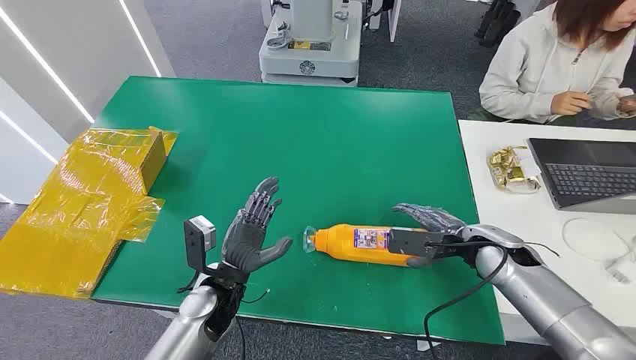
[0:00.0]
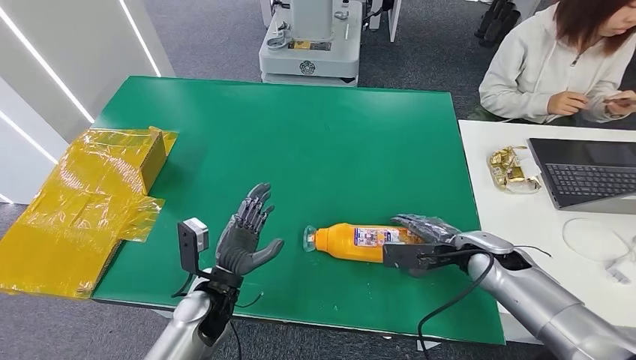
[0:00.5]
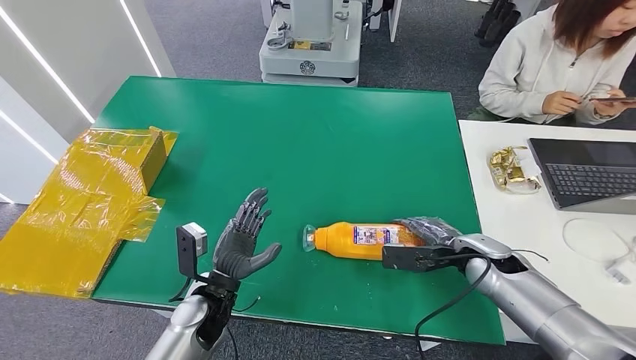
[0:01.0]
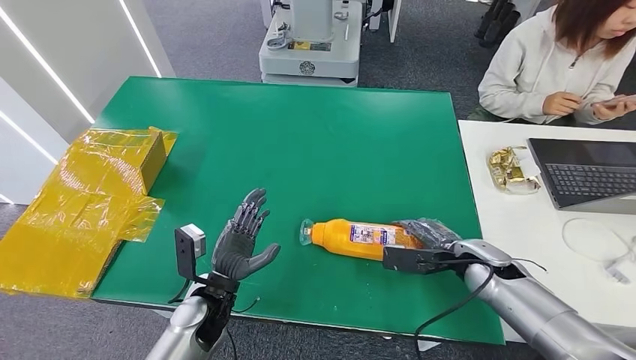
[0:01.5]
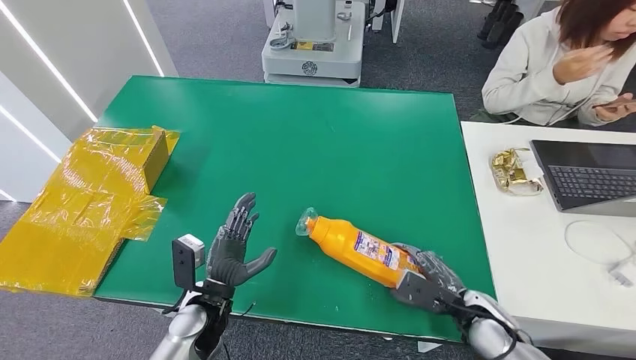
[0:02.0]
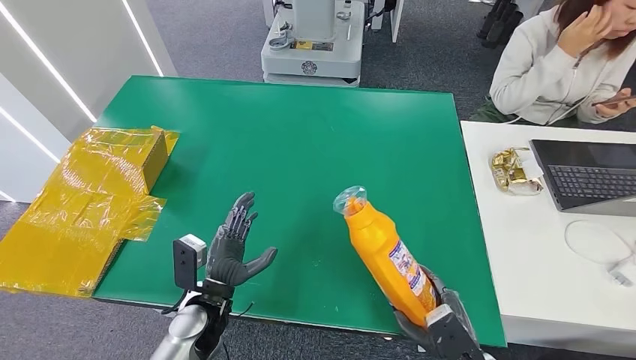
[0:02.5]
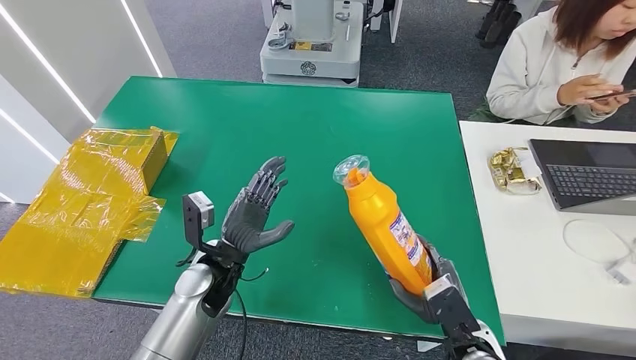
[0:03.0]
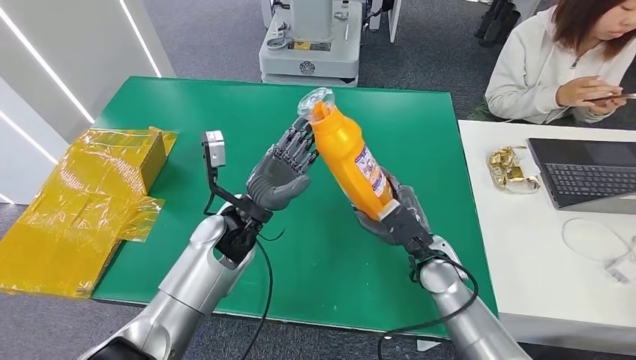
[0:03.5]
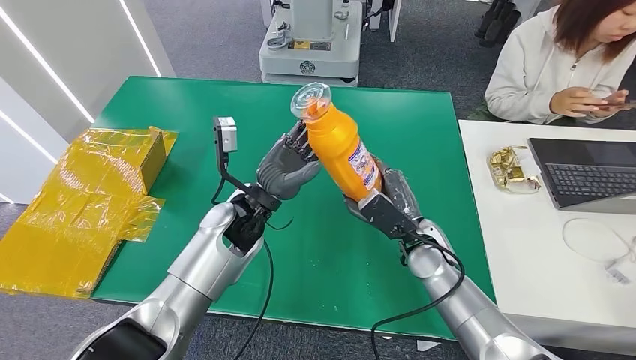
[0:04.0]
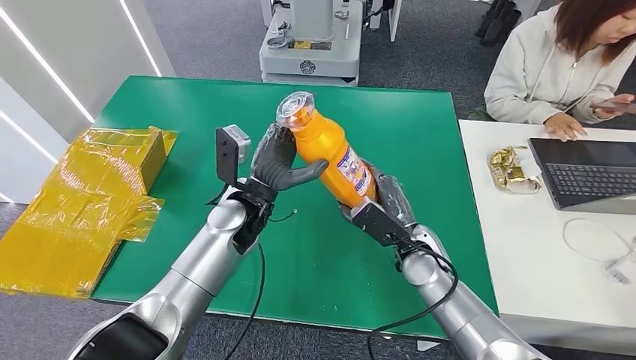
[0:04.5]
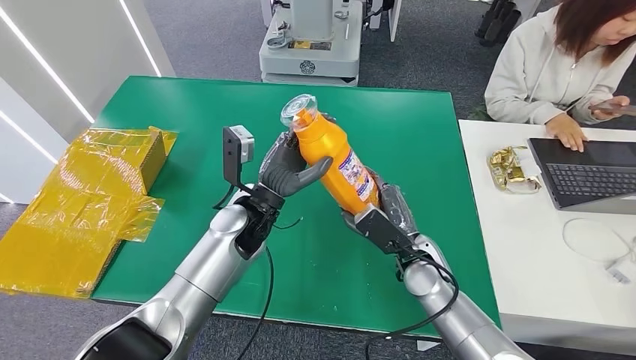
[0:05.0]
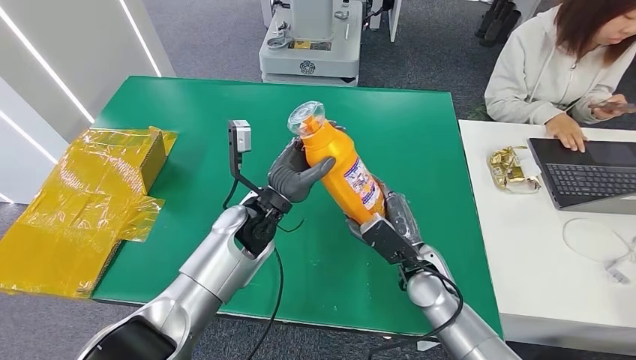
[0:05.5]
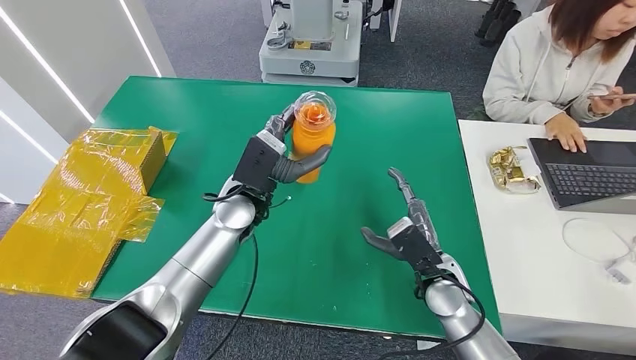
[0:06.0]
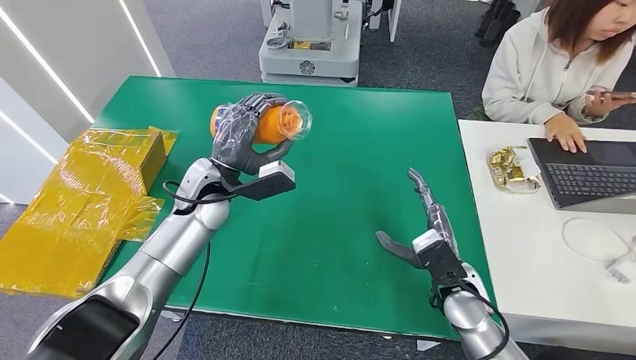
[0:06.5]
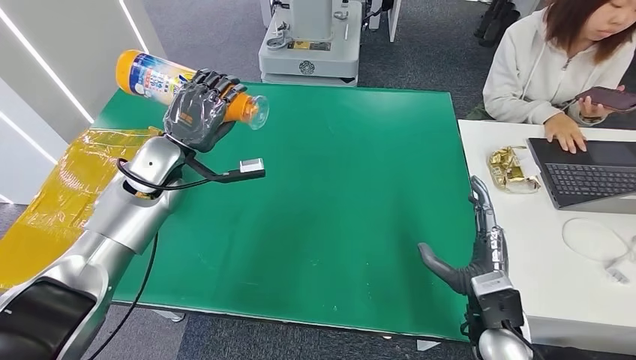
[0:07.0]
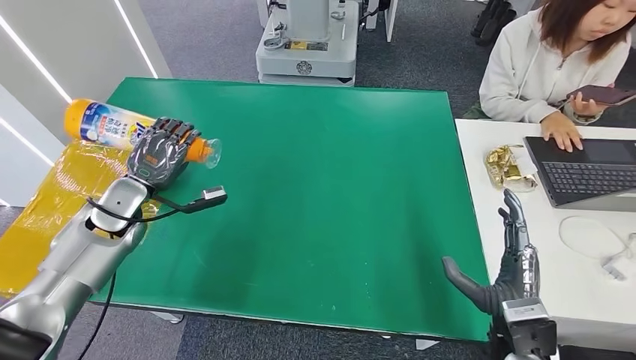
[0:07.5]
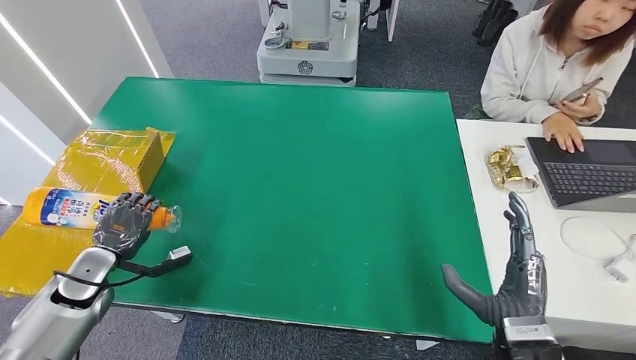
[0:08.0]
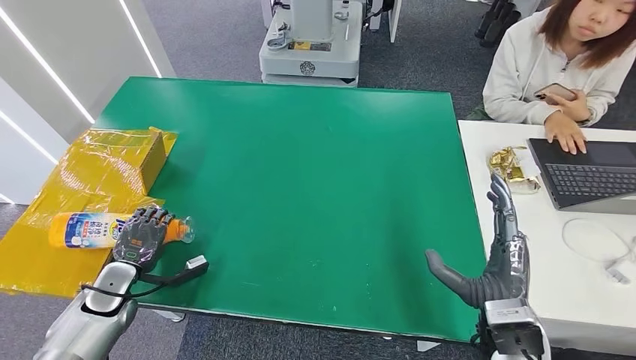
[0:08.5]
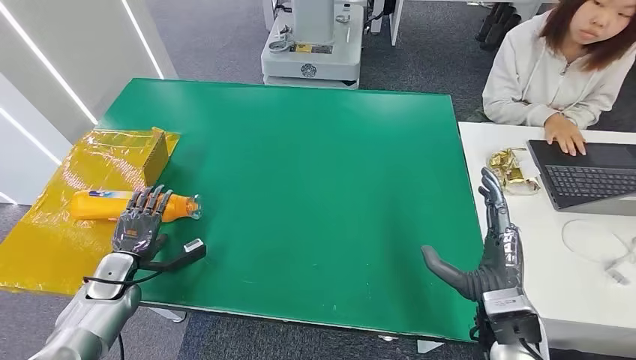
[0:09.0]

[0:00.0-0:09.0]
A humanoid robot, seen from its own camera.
Step, 0:00.0 to 0:04.5: Pick up the bottle from the table.
Step, 0:05.0 to 0:08.5: Turn the bottle to the front side.

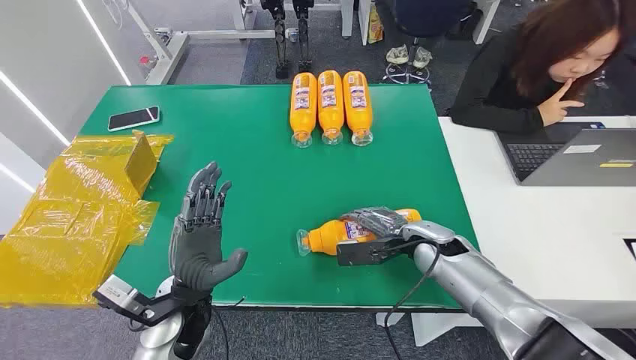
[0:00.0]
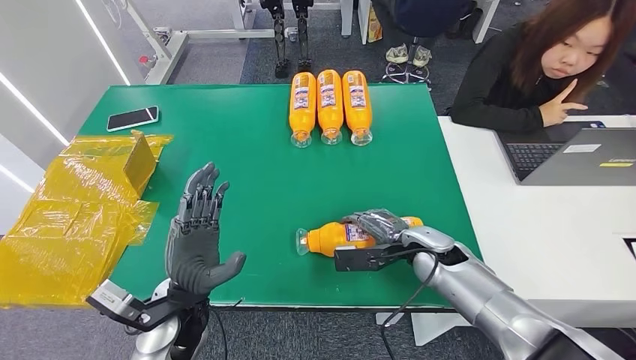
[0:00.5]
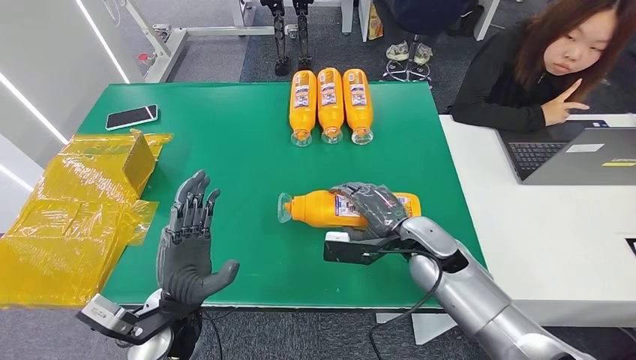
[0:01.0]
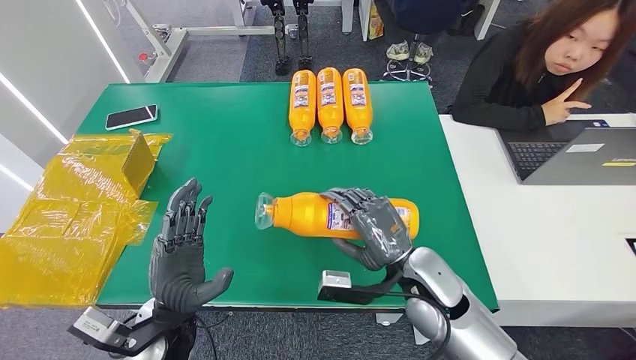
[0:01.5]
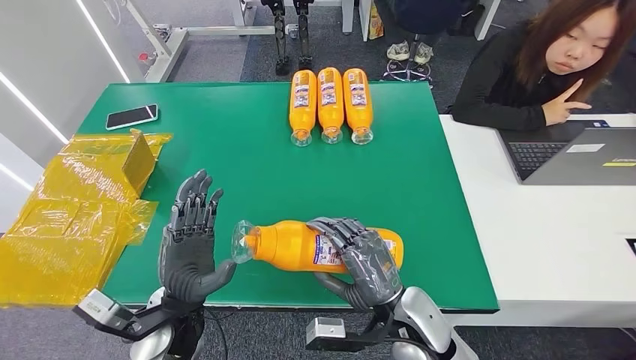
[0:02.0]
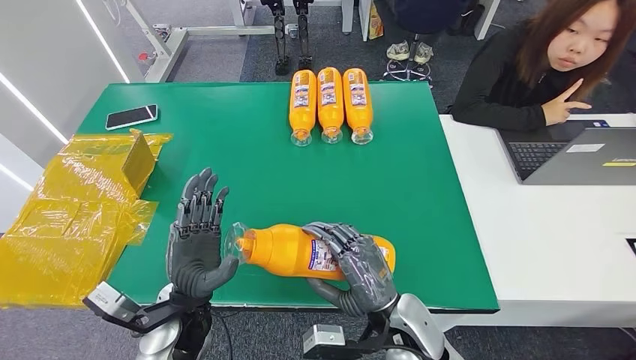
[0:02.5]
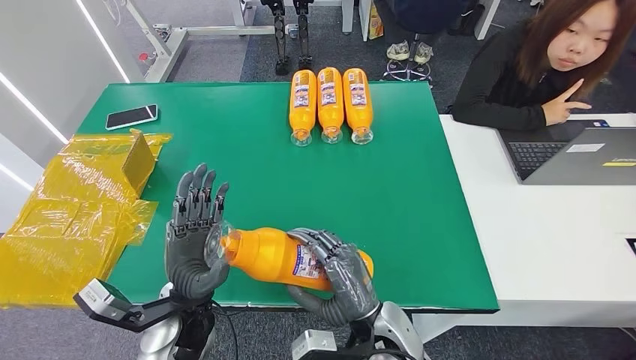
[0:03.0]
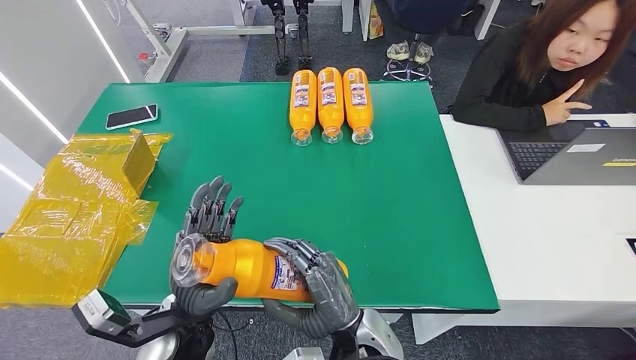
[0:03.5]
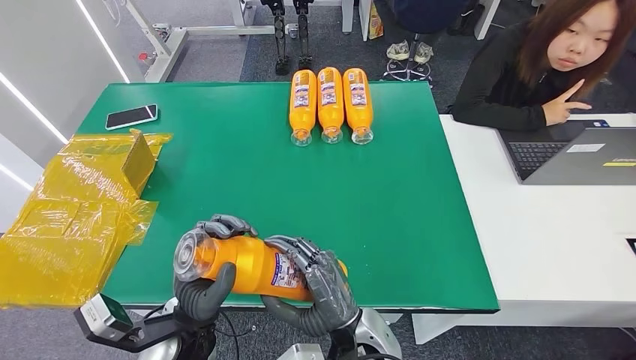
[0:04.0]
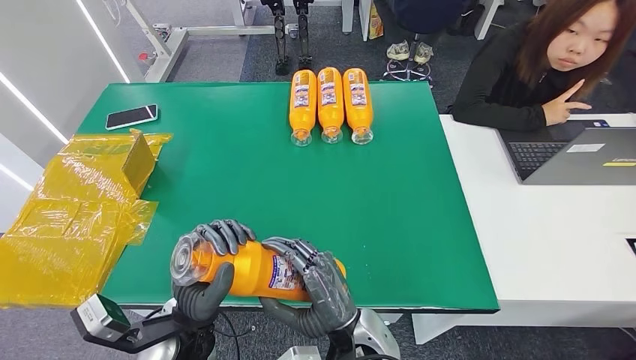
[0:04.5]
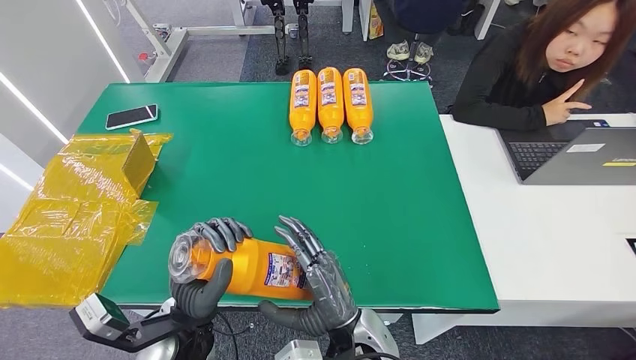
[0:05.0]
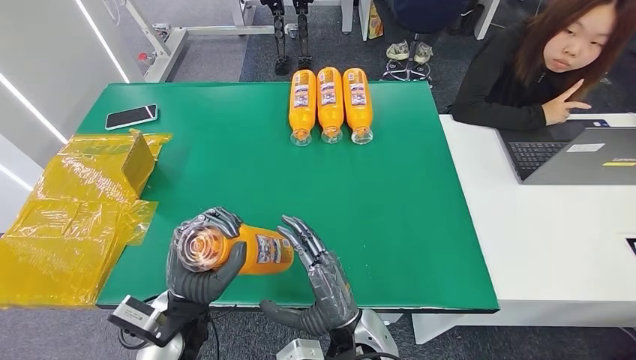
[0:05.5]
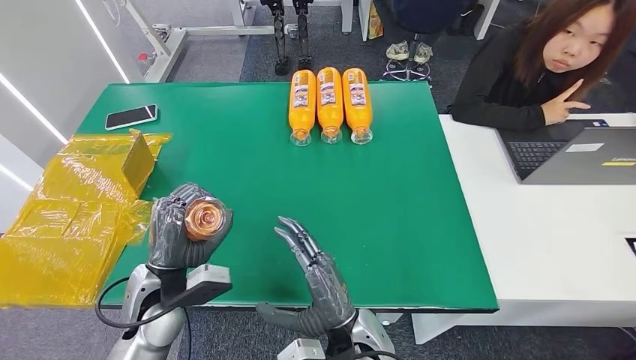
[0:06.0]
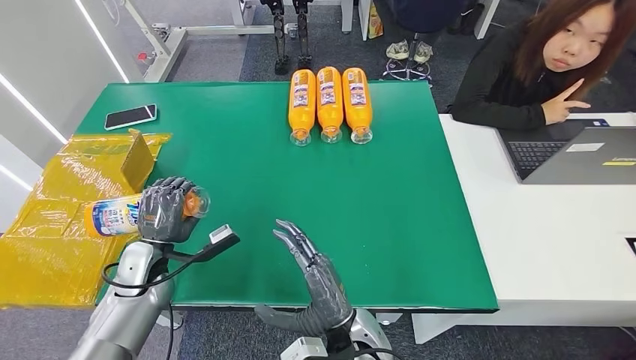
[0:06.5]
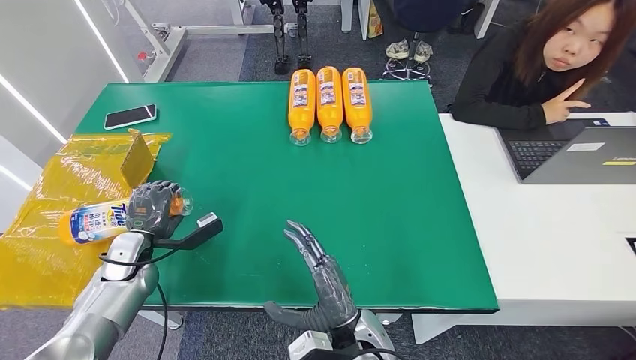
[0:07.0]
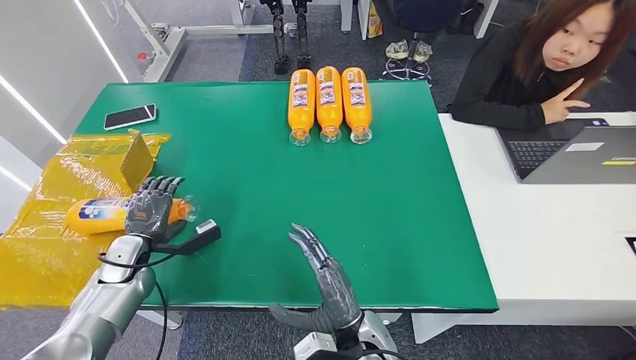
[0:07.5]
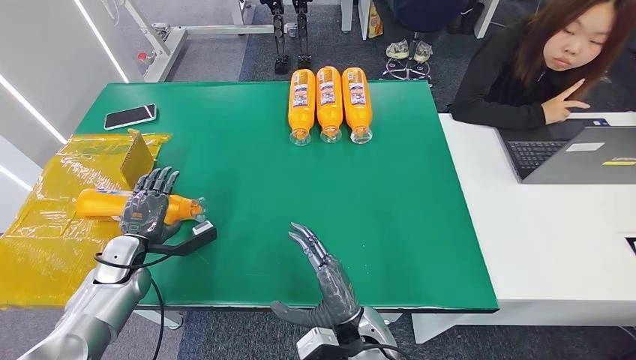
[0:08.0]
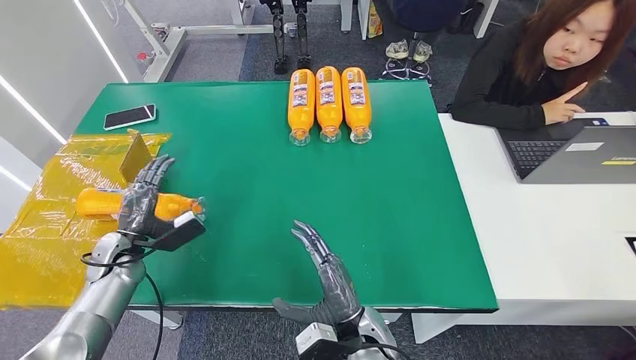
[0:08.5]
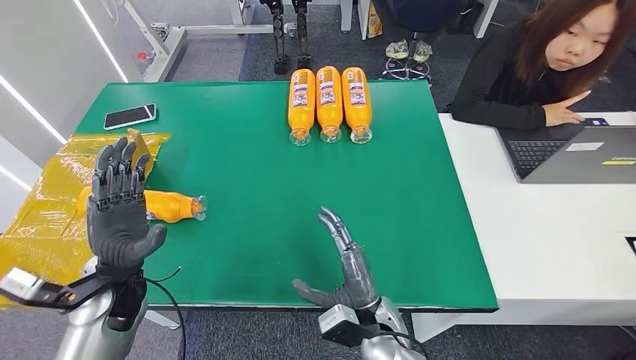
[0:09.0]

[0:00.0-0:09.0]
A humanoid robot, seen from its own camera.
Step, 0:00.0 to 0:03.5: Pick up the bottle from the table.
Step, 0:04.0 to 0:09.0: Turn the bottle to the front side.
0:02.0 to 0:04.5: The right hand heads to the left, covering about 10 cm.
0:04.5 to 0:07.0: The left hand moves to the left and forward, approximately 25 cm.
0:07.0 to 0:09.0: The left hand travels to the right and upward by some 10 cm; the right hand moves roughly 5 cm.
